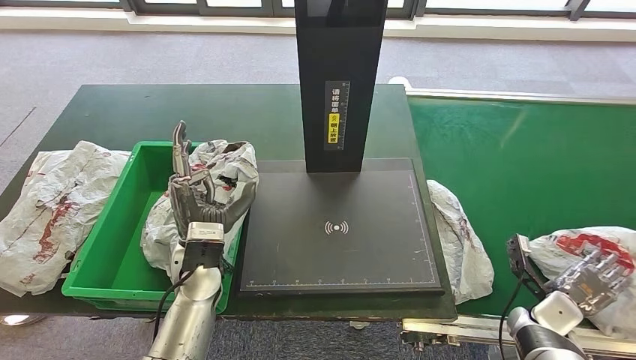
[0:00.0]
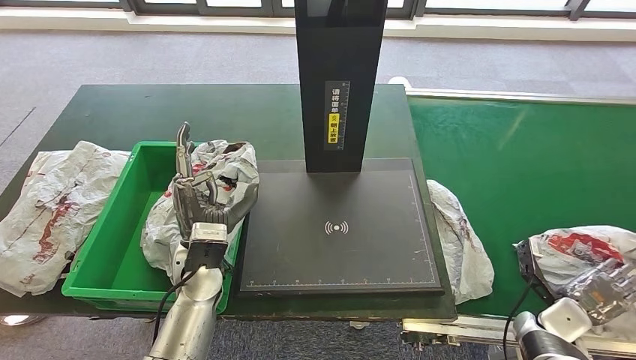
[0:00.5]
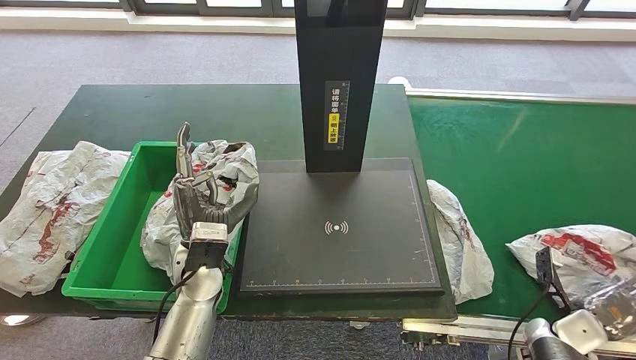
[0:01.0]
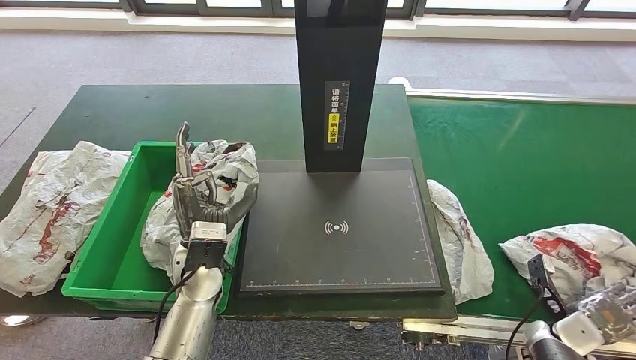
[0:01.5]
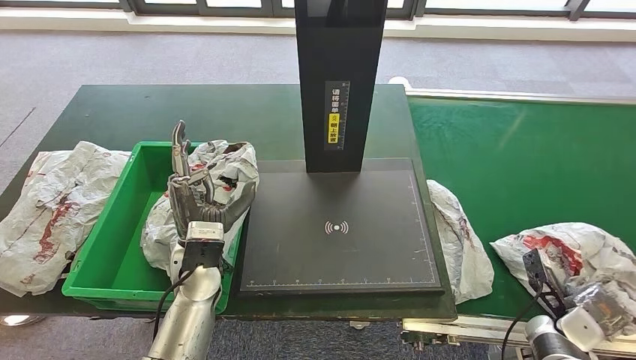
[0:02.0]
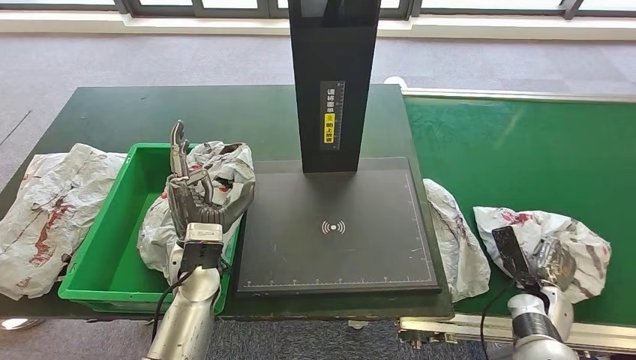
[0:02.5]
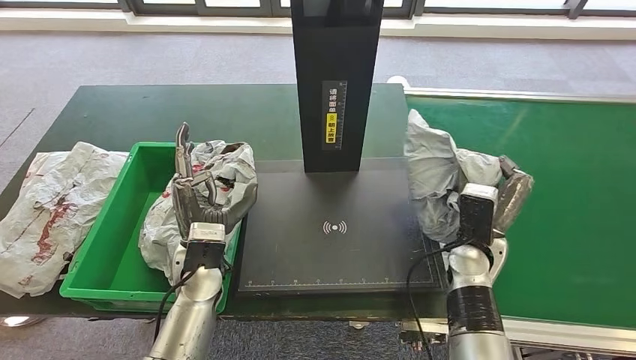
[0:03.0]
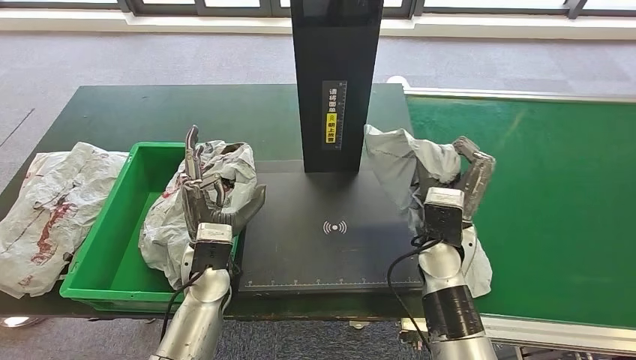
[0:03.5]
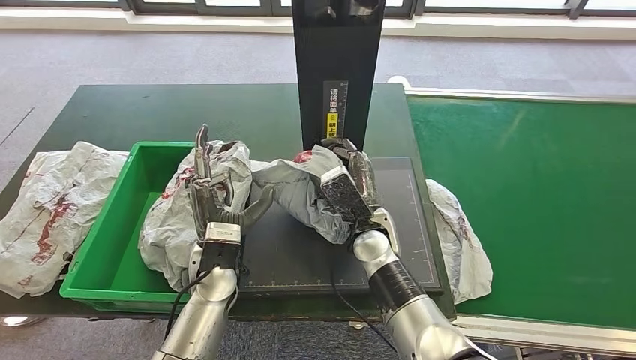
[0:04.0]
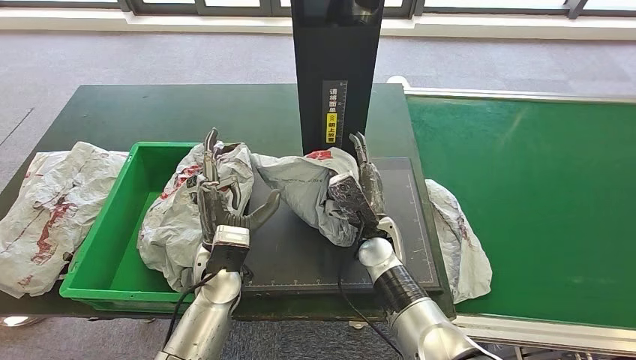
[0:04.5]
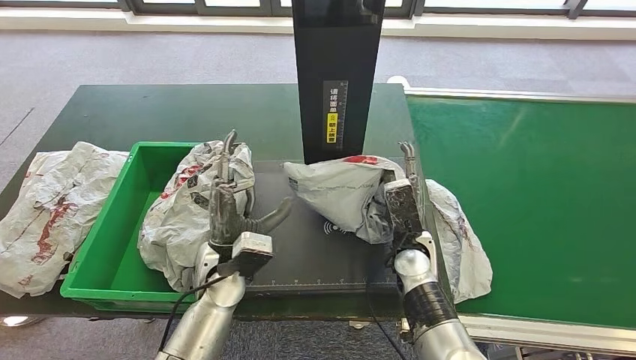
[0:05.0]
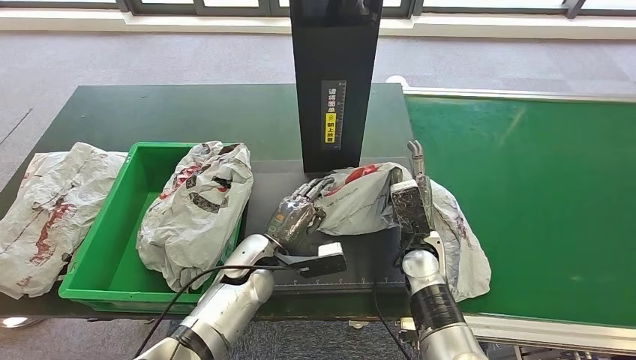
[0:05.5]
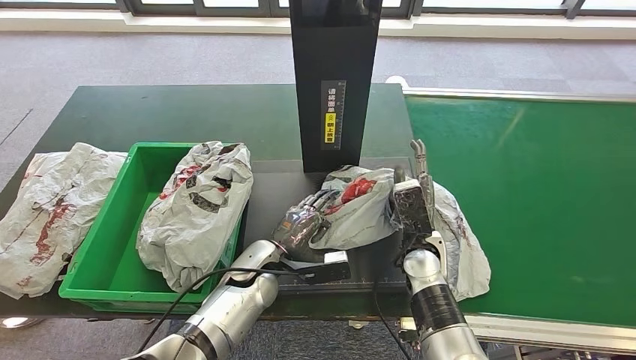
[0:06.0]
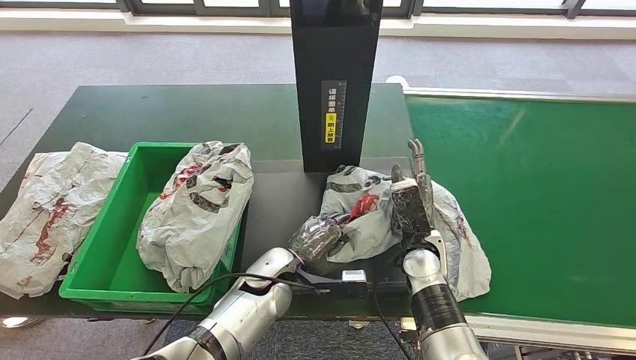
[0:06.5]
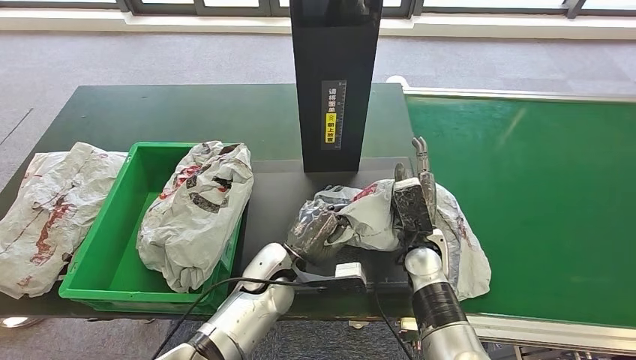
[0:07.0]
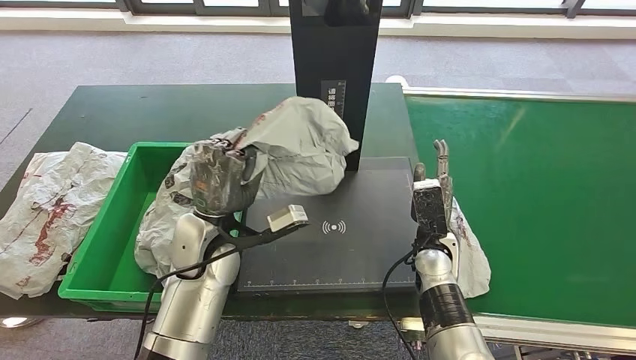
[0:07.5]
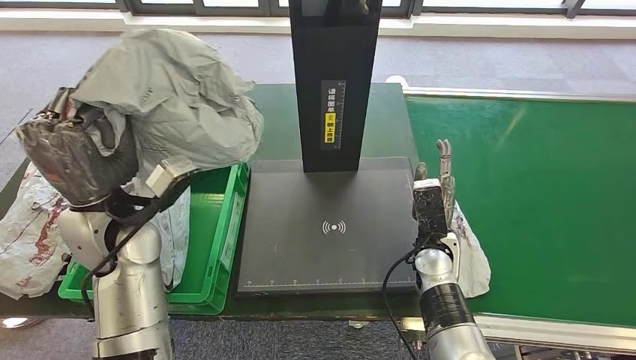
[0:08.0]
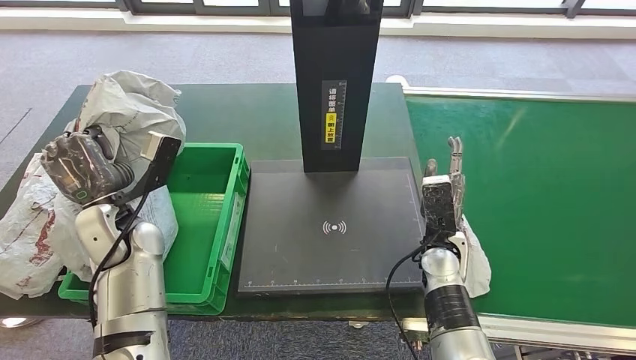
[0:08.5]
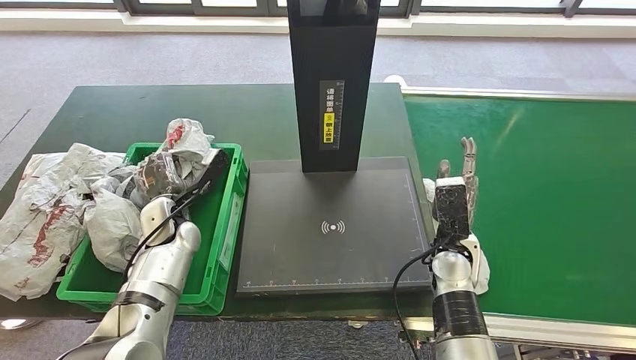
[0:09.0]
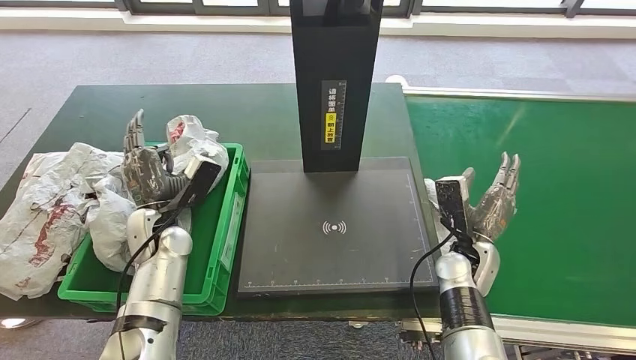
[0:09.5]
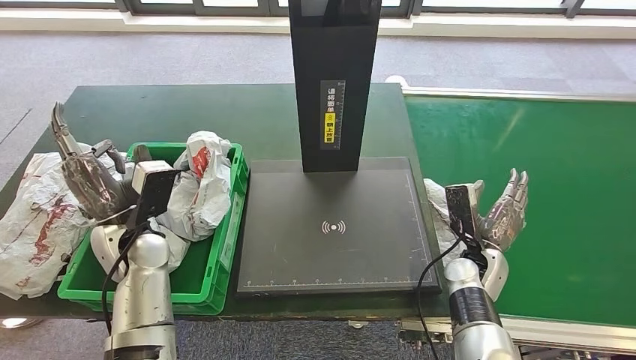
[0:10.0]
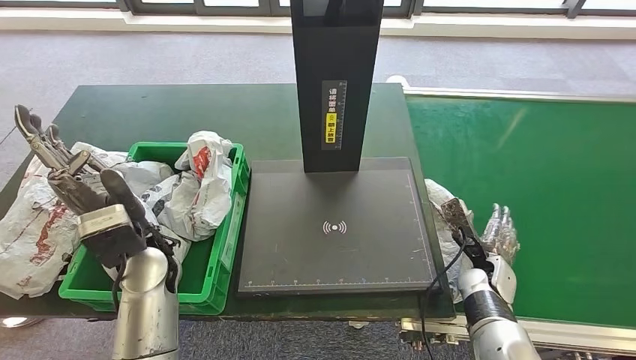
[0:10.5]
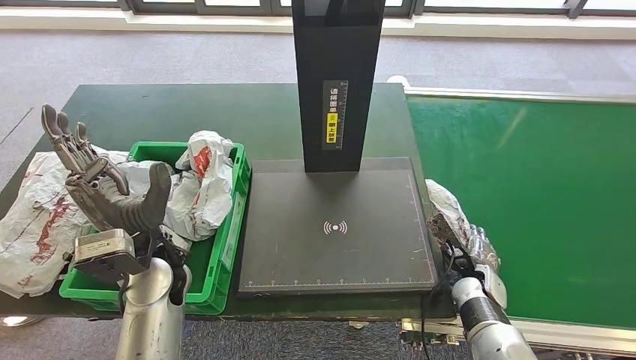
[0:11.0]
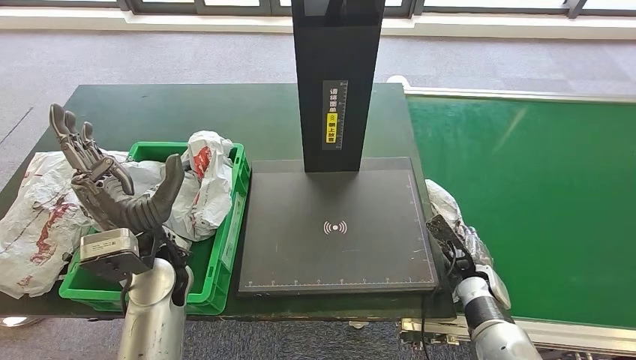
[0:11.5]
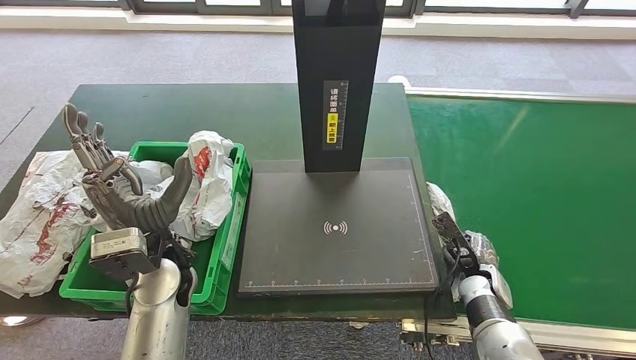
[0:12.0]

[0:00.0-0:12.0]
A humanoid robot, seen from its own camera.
Step, 0:01.0 to 0:03.0: Pick up the parcel from the conveyor belt.
Step, 0:03.5 to 0:05.5: Place the parcel onto the inbound machine.
Step, 0:06.0 to 0:07.5: Pick up the parcel from the inbound machine.
Step, 0:08.0 to 0:10.0: Place the parcel into the delivery box.
0:00.0 to 0:02.0: The hands stay close to where they were, moving slightly.
0:04.0 to 0:06.0: The right hand heads to the right, covering roughly 10 cm, while the left hand moves downward and to the right, about 10 cm.
0:10.0 to 0:12.0: The left hand travels to the right by roughly 5 cm. Meanwhile the right hand is displaced downward by approximately 5 cm.

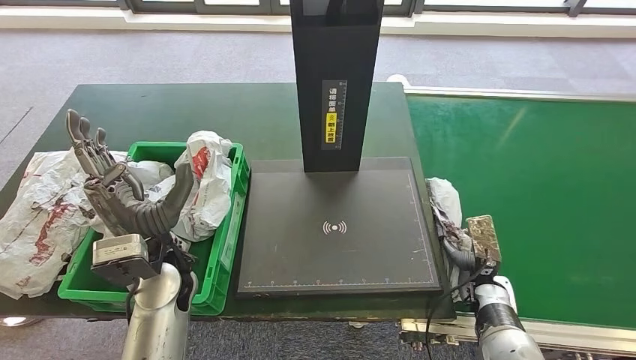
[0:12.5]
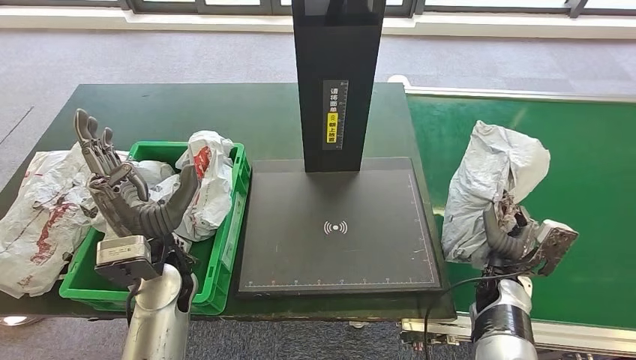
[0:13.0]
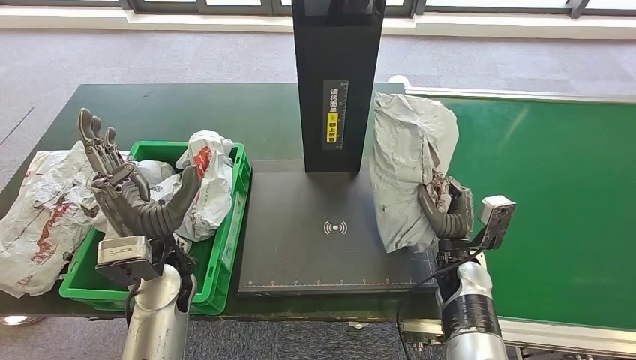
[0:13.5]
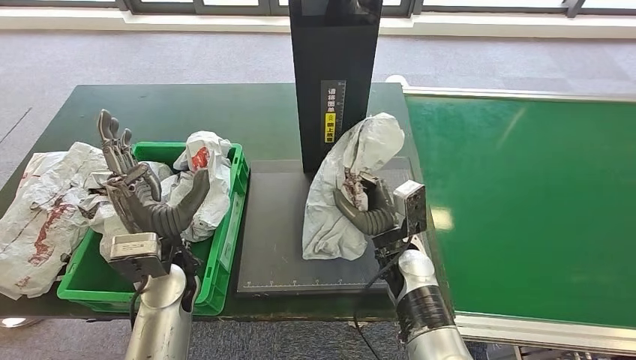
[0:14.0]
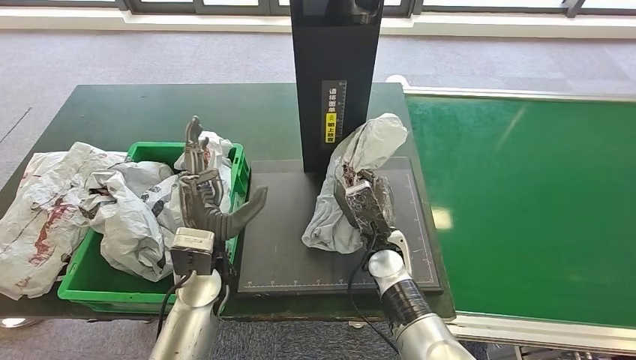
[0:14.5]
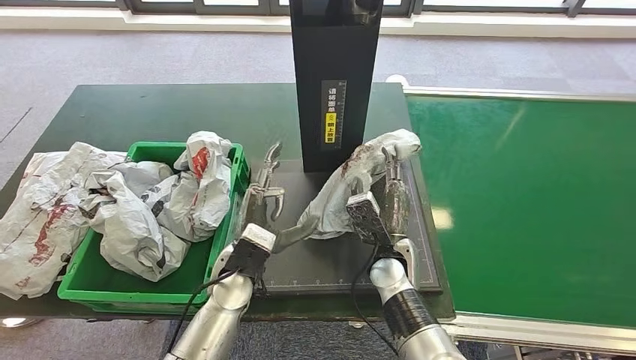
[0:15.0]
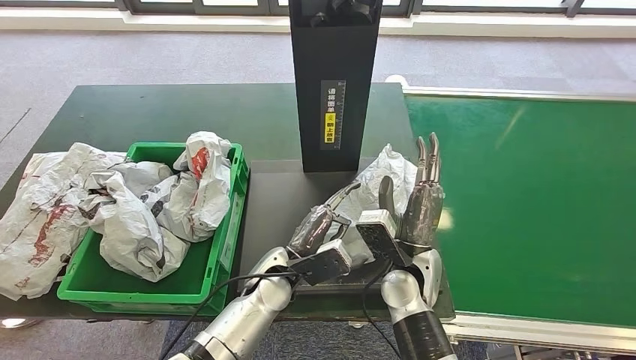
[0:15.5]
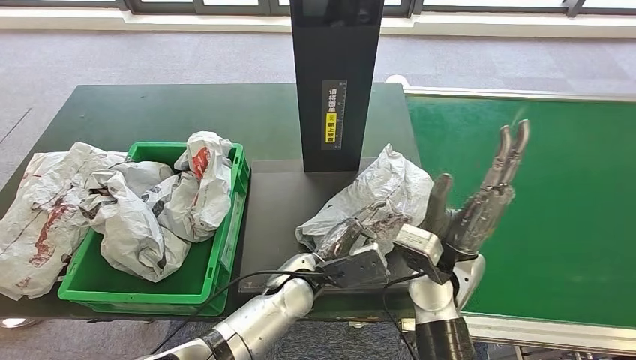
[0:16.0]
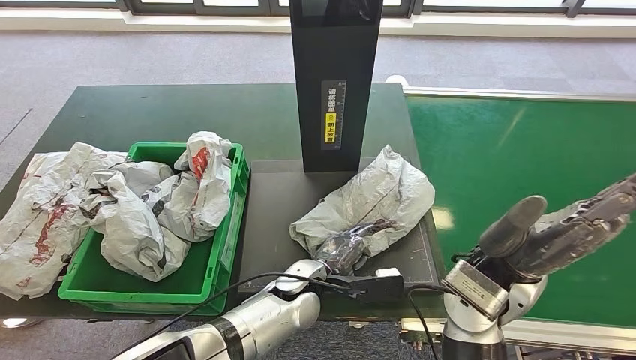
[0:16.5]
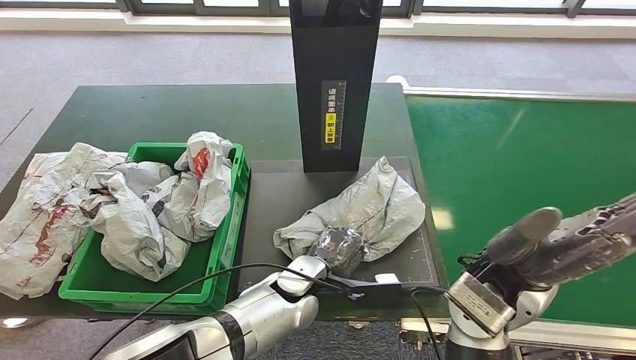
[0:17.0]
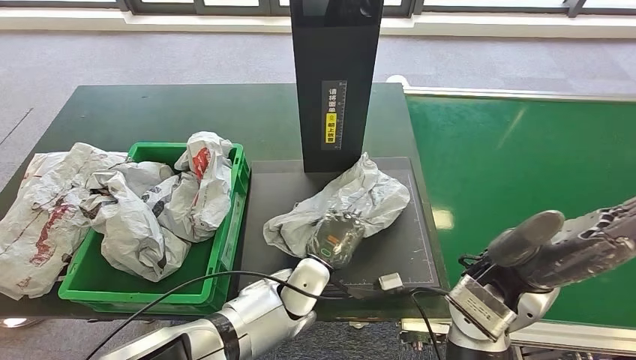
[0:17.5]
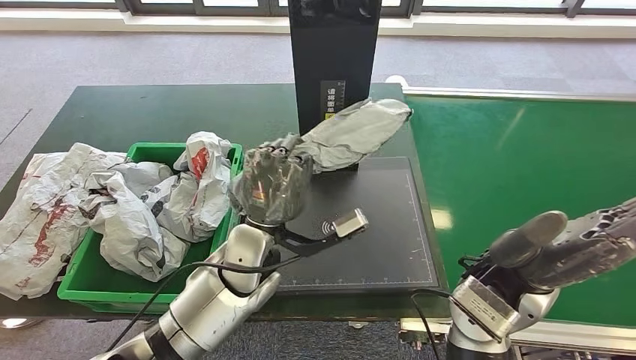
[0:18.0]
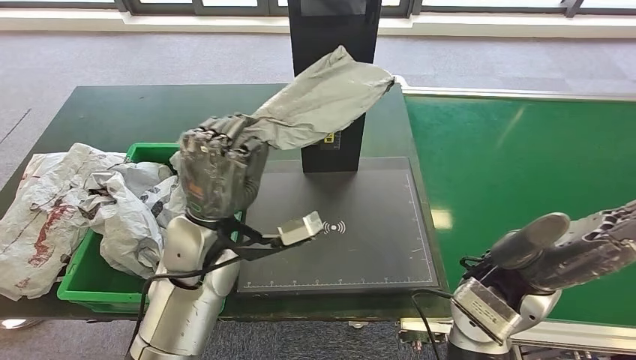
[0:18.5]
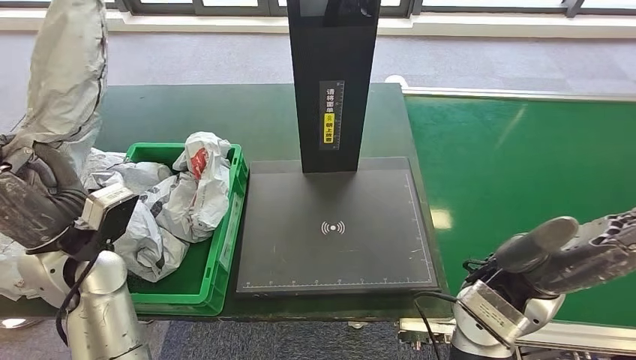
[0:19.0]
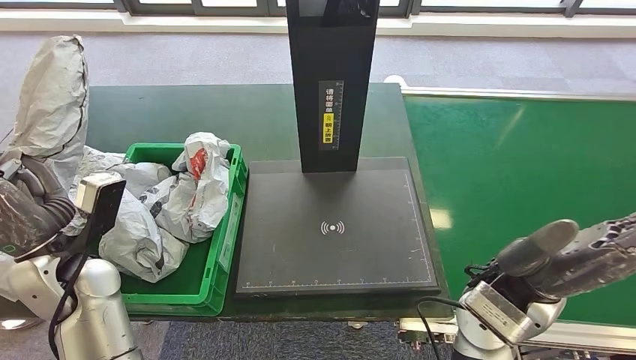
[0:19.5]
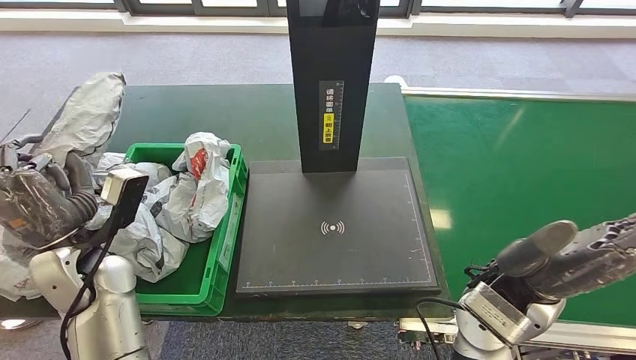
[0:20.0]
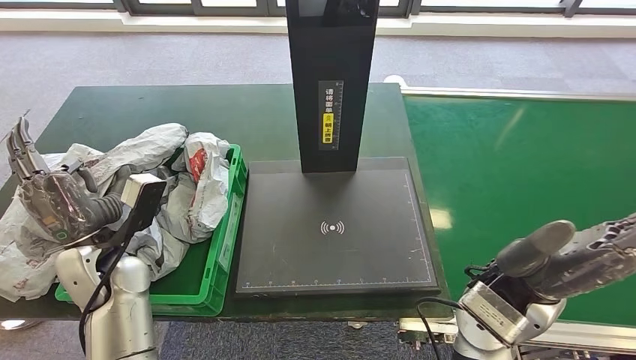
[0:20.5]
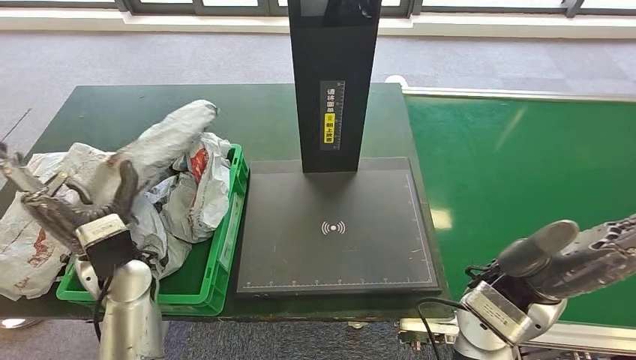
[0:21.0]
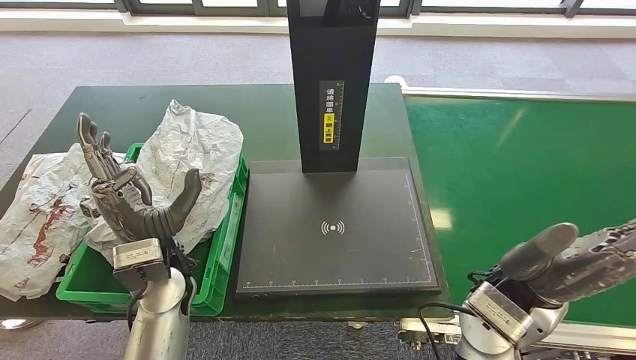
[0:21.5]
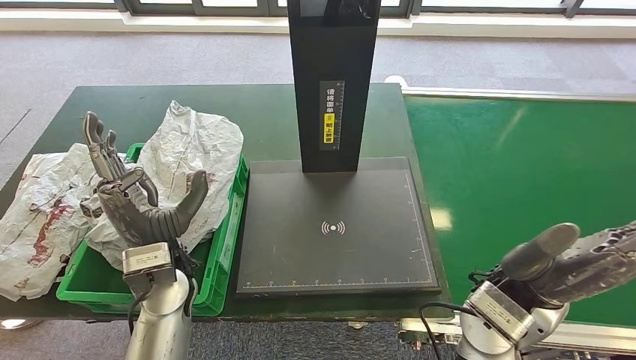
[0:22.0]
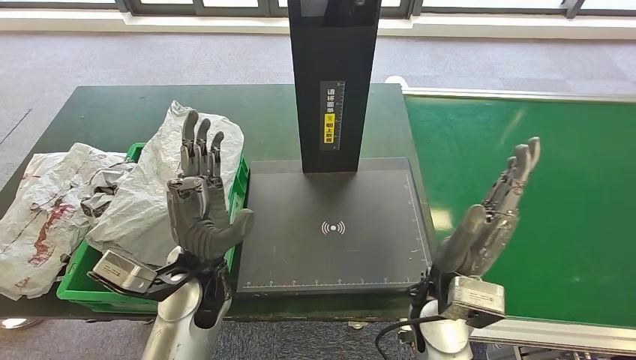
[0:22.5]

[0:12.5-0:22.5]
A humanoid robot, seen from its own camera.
Step, 0:13.0 to 0:13.5: Pick up the parcel from the conveyor belt.
Step, 0:14.0 to 0:14.5: Place the parcel onto the inbound machine.
Step, 0:15.5 to 0:18.0: Pick up the parcel from the inbound machine.
Step, 0:18.5 to 0:22.5: Place the parcel into the delivery box.
